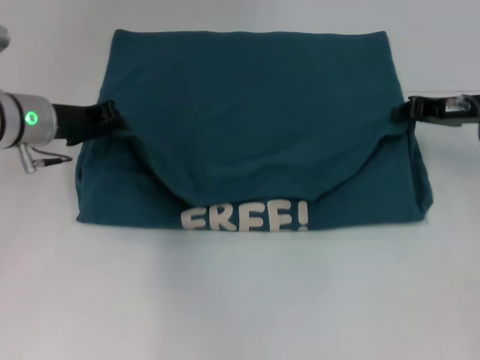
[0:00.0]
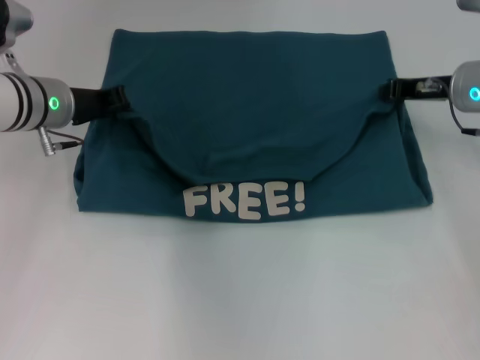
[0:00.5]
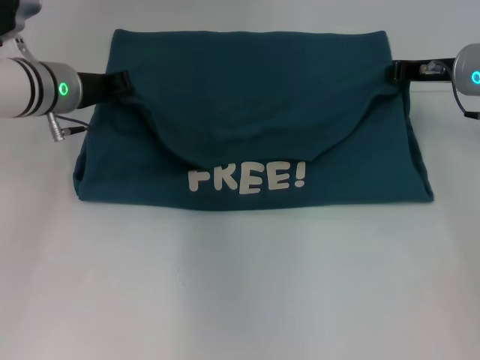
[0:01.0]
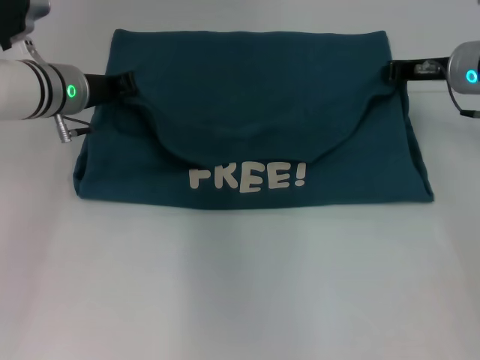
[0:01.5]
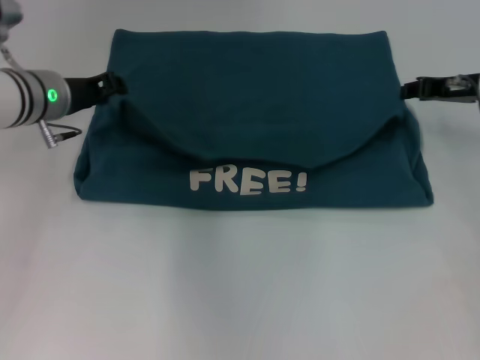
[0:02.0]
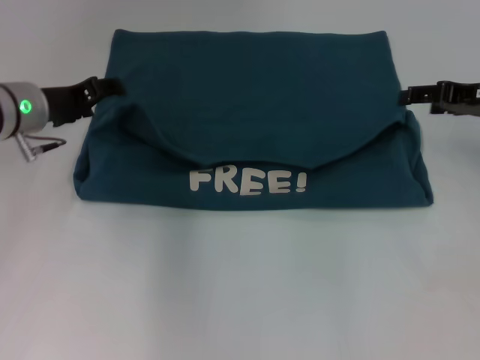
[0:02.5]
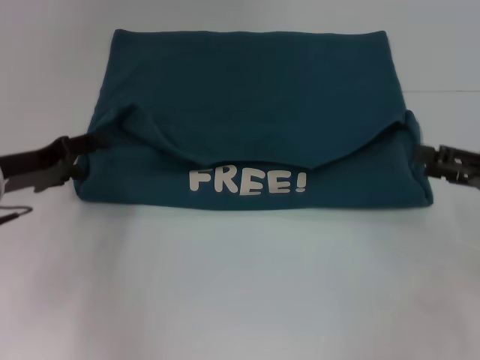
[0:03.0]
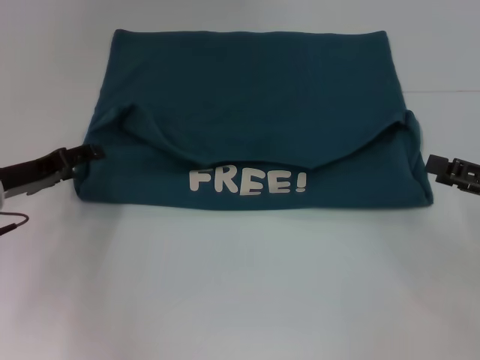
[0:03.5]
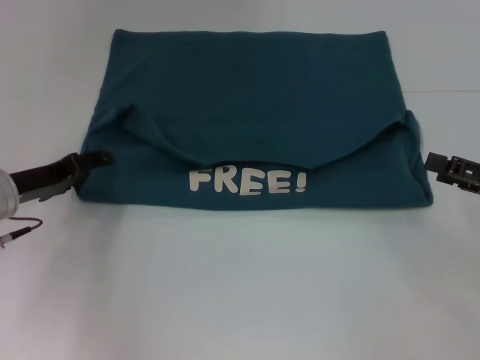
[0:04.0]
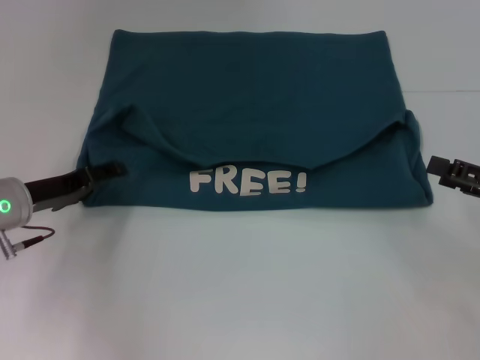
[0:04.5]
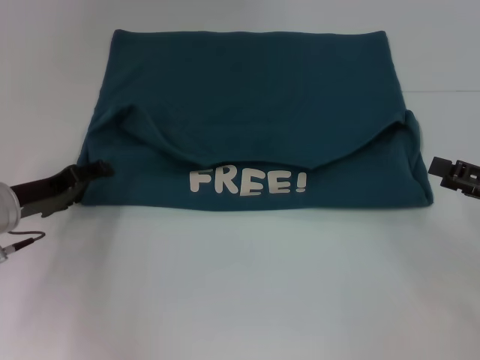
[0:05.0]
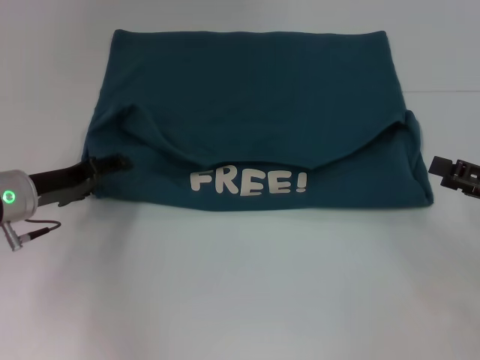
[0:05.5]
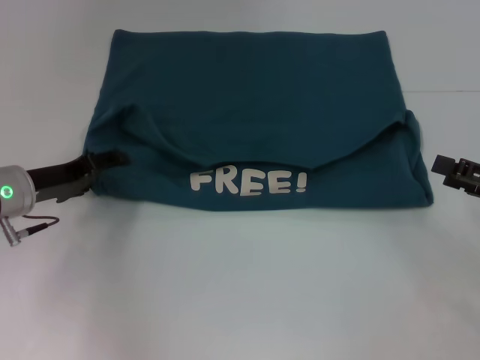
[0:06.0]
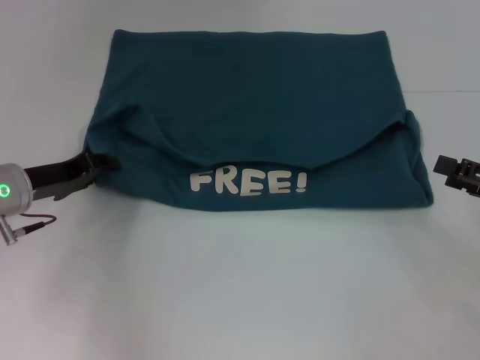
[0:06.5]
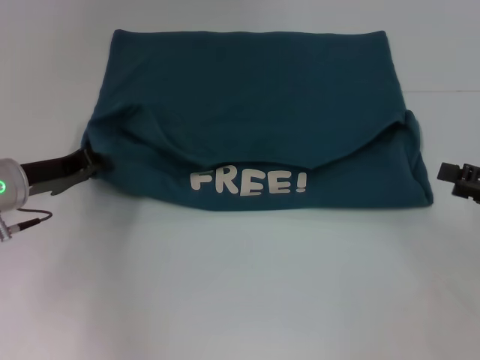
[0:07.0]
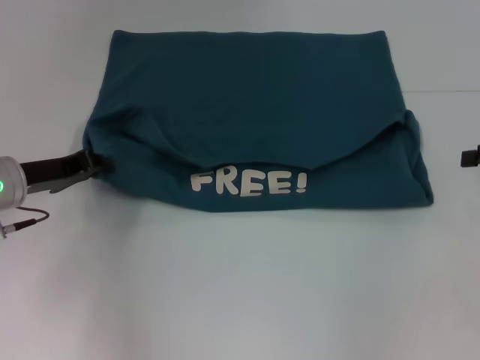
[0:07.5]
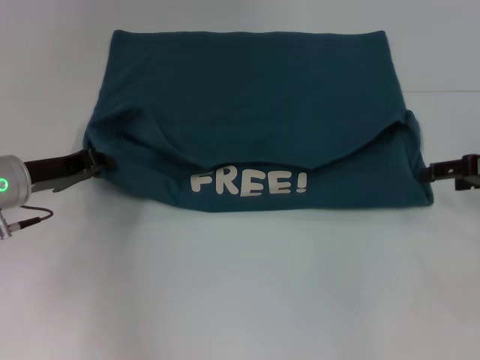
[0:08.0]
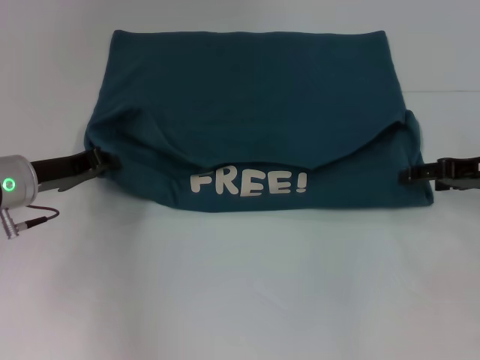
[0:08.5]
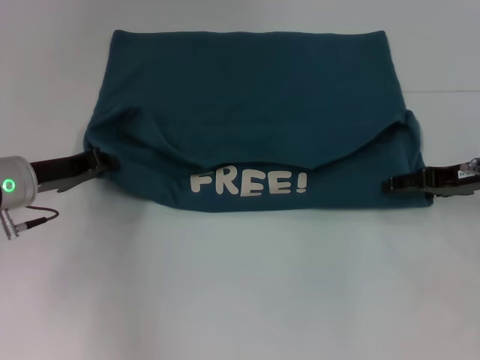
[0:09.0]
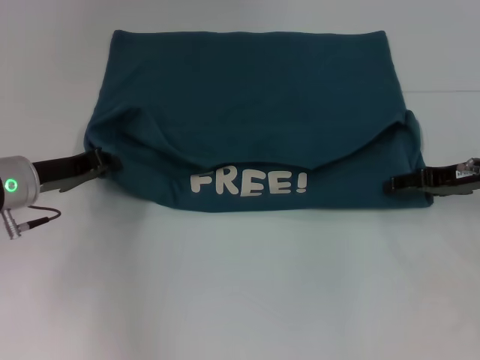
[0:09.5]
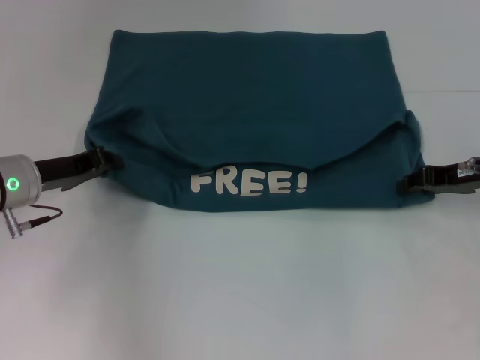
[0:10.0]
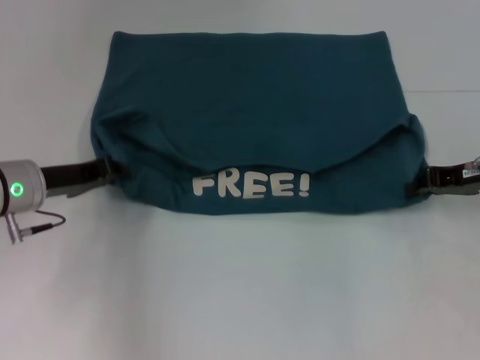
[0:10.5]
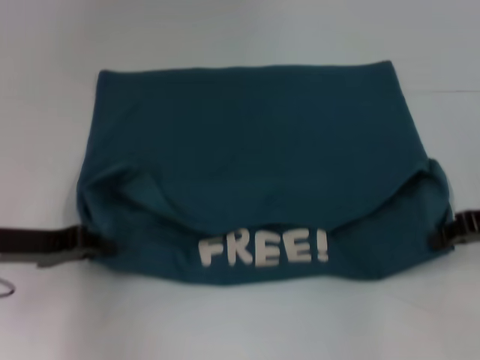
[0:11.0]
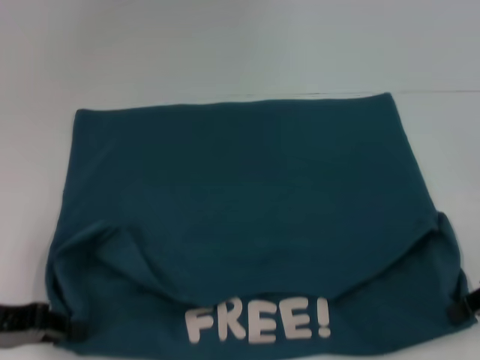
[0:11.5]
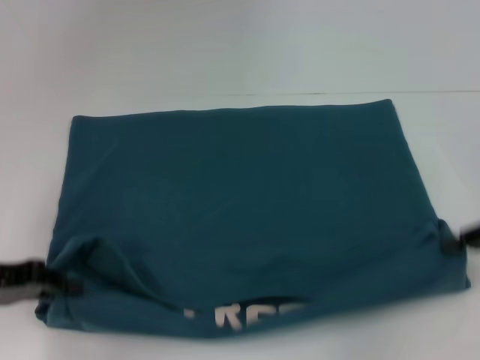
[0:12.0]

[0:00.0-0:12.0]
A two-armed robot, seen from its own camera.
Step, 0.0 to 2.0 s: Fold the clothes to the left.
Step, 0.0 to 2.0 s: Fold the clothes to the right.
Step, 2.5 to 11.0 s: Pull the clothes with your left hand.
Step, 2.5 to 11.0 s: Pull the clothes with your right hand.
0.0 to 2.0 s: The grippers make only small movements.
2.0 to 4.0 s: The left gripper goes roughly 15 cm backward, downward and to the left, and opens. The right gripper goes approximately 15 cm backward and to the right, and opens.
4.0 to 6.0 s: The grippers make only small movements.
6.0 to 8.0 s: The right gripper heads forward, covering roughly 10 cm. The left gripper closes.
8.0 to 10.0 s: The right gripper shifts by approximately 5 cm, and closes its fingers.
10.0 to 12.0 s: The left gripper moves backward and to the left, some 10 cm; the right gripper goes about 10 cm backward and to the right, and closes up.

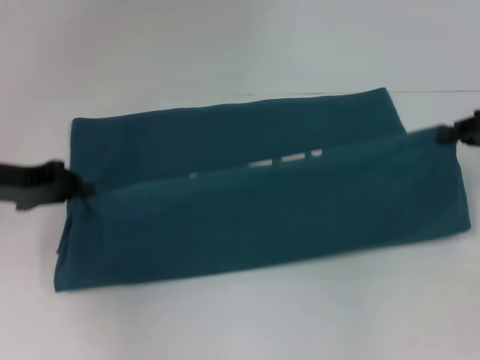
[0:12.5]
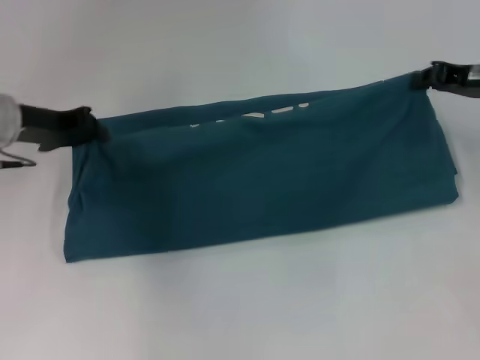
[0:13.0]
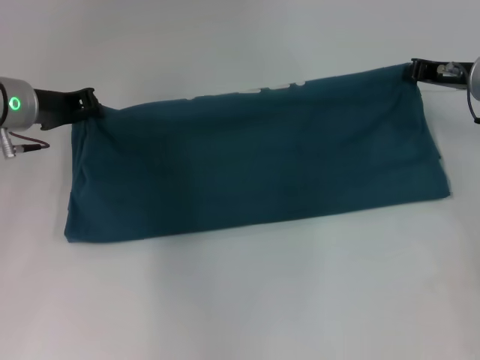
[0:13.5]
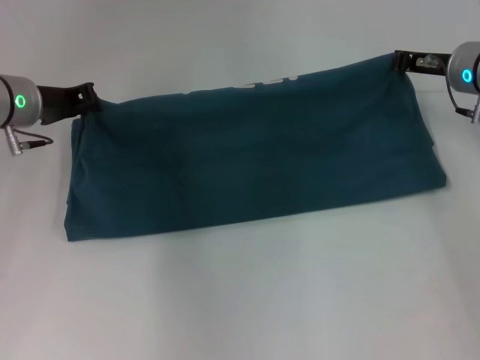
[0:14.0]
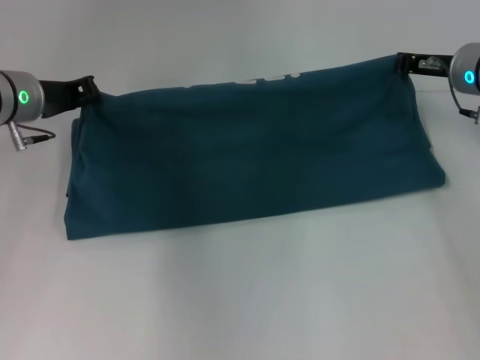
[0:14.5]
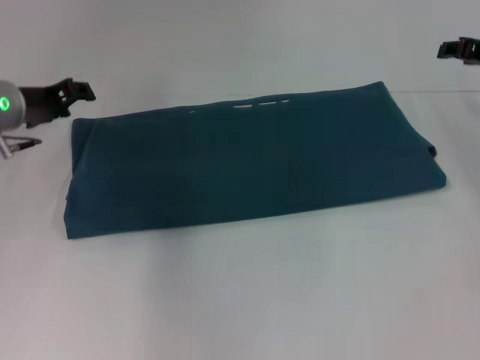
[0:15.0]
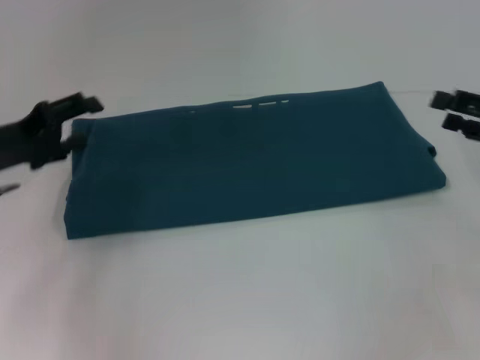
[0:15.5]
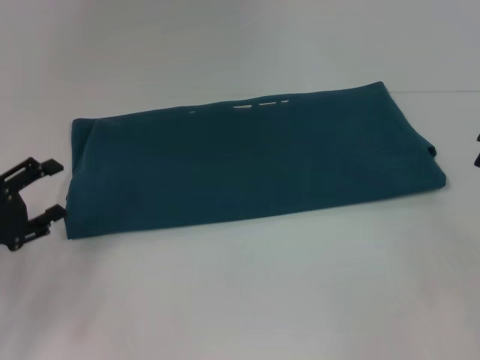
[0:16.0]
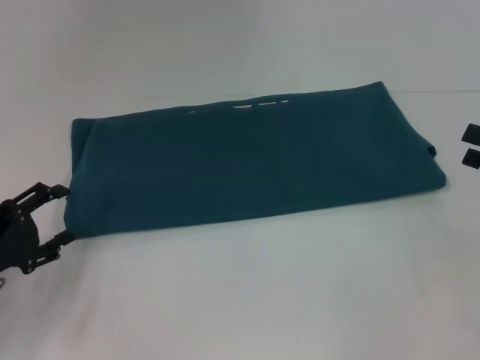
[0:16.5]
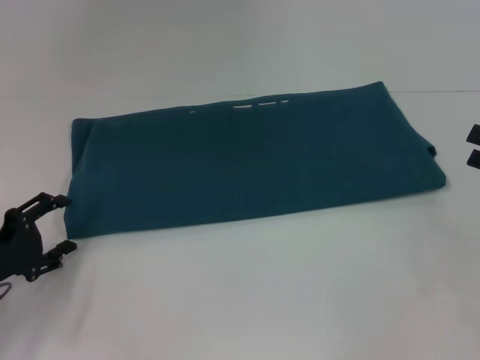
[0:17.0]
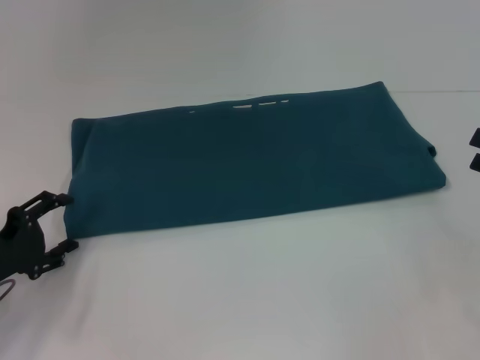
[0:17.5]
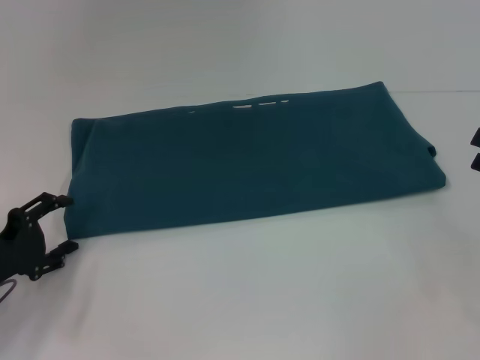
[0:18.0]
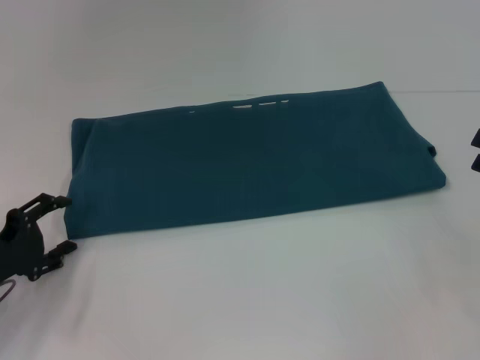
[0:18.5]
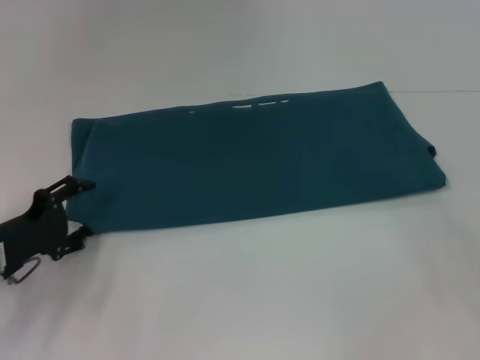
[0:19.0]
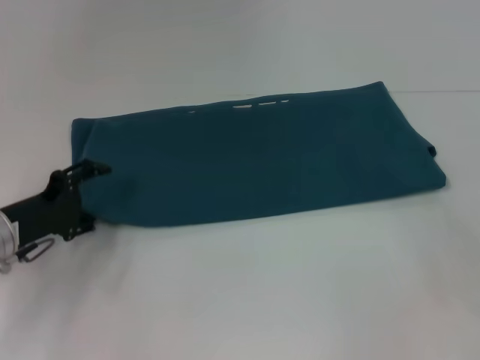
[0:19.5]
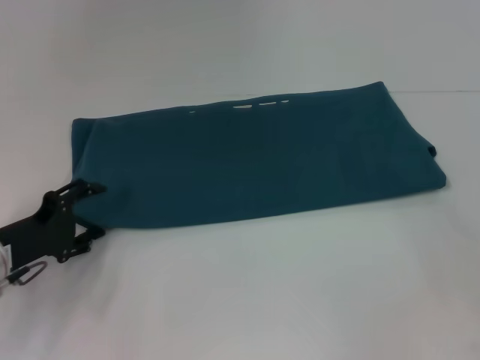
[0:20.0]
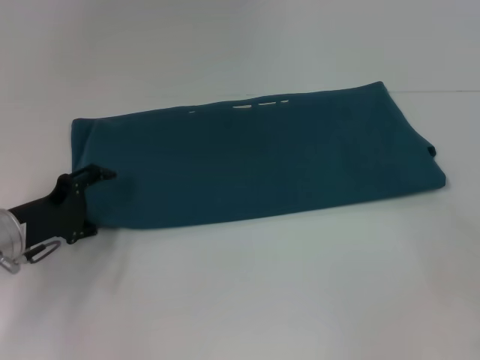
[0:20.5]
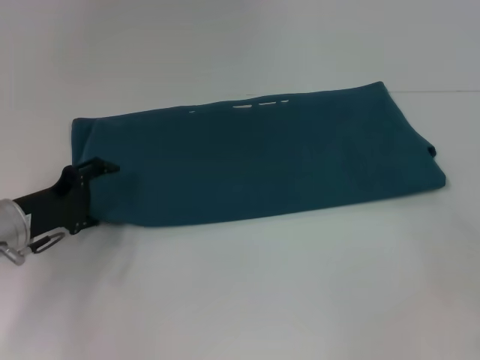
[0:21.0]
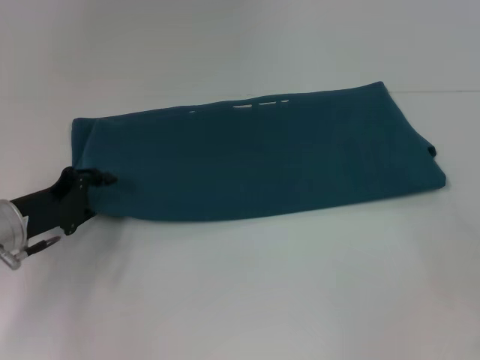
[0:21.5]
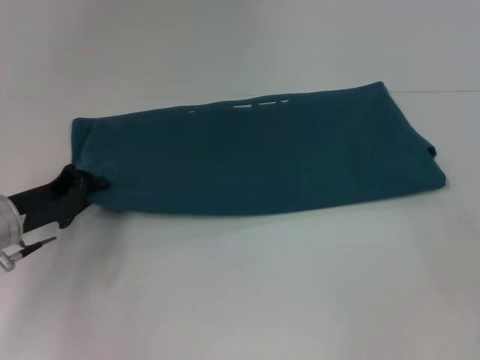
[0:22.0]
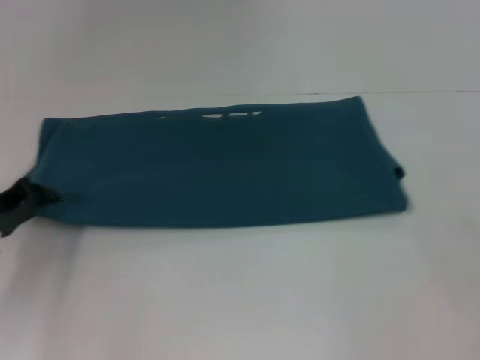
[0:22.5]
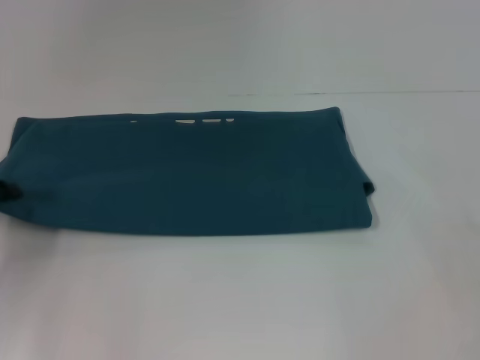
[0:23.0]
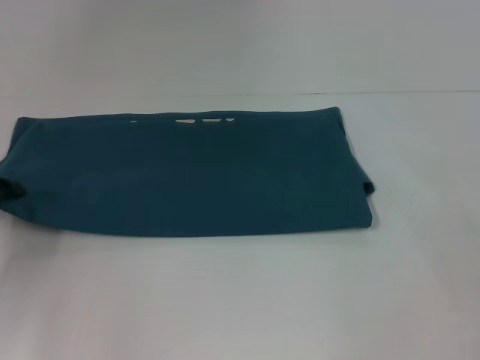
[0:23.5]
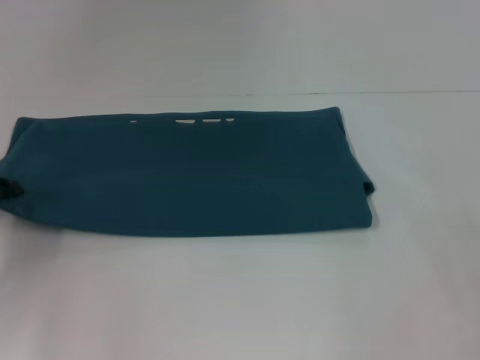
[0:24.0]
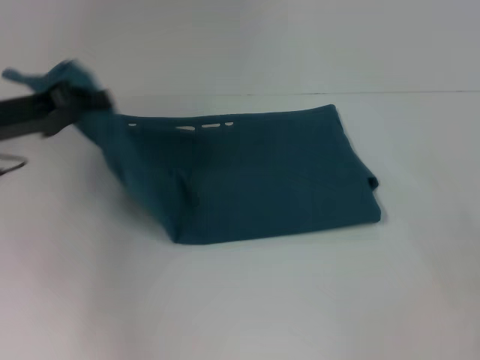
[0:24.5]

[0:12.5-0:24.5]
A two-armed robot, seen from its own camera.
Step, 12.5 to 14.5 s: Fold the clothes to the right.
12.5 to 14.5 s: The left gripper is displaced forward and to the right by approximately 10 cm; the right gripper moves to the left and forward, some 15 cm.
14.5 to 16.5 s: The left gripper is displaced backward, downward and to the left by some 20 cm, and opens up. Meanwhile the right gripper shifts about 20 cm backward and to the right, and opens its fingers.
16.5 to 18.5 s: The grippers make only small movements.
18.5 to 20.5 s: The left gripper moves forward, approximately 5 cm.
20.5 to 22.5 s: The left gripper ends up roughly 5 cm from where it was, and closes.
22.5 to 24.5 s: The left gripper is displaced upward by roughly 10 cm.

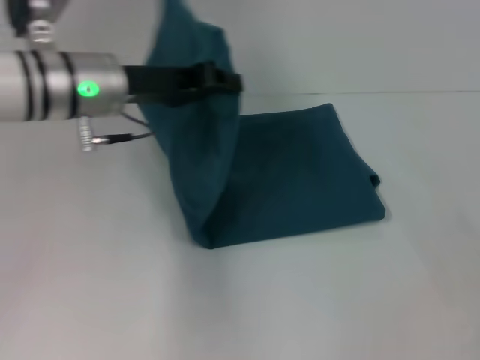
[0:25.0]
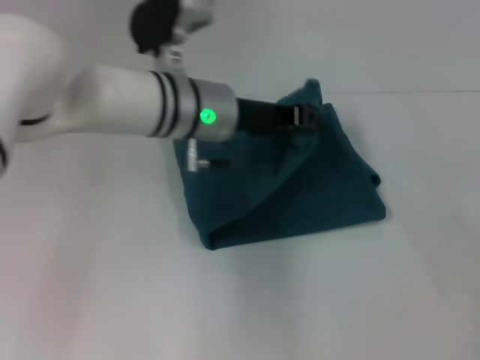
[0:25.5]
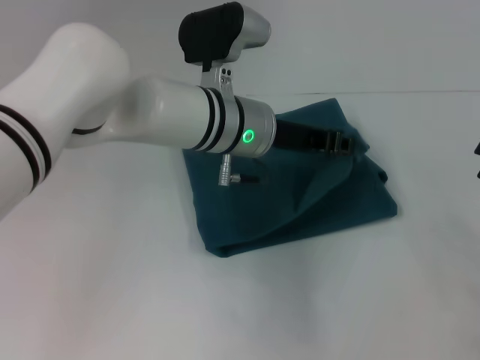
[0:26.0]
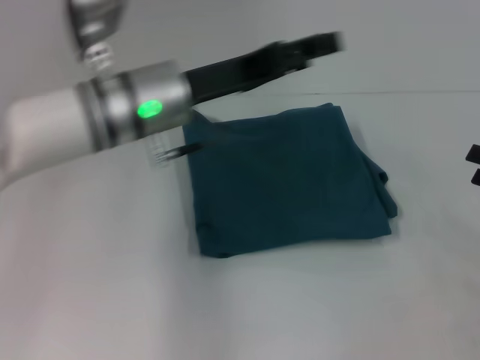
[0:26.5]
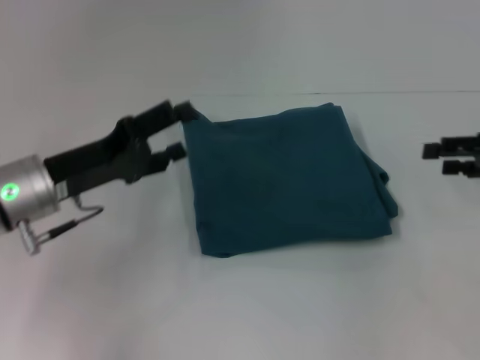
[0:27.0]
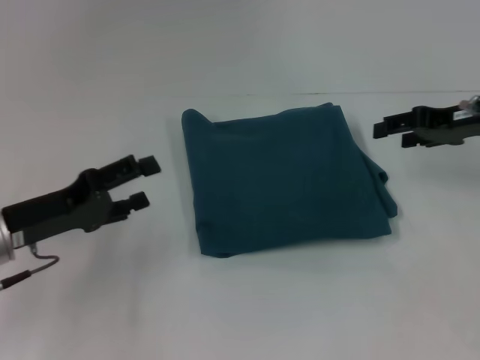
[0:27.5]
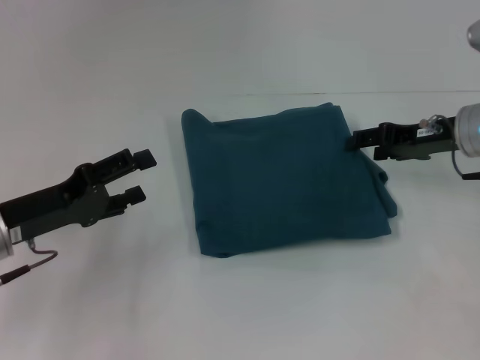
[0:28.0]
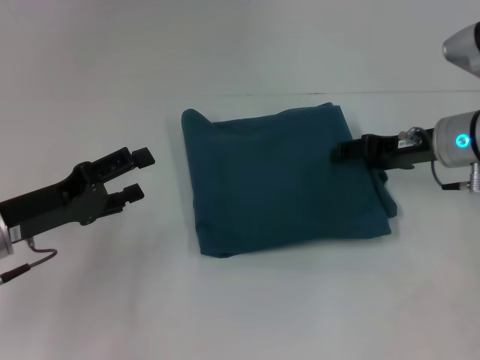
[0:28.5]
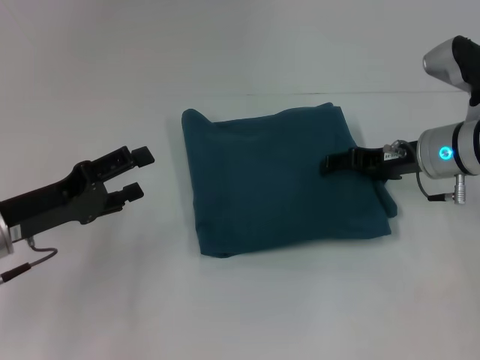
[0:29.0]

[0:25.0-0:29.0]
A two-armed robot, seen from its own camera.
25.0 to 27.0 s: The right gripper heads forward, covering about 10 cm. Meanwhile the left gripper shifts roughly 10 cm downward and backward, travels to the right and back again, about 15 cm each way, and opens up.
27.0 to 29.0 s: The left gripper changes place by approximately 5 cm. Meanwhile the right gripper goes approximately 15 cm to the left.
